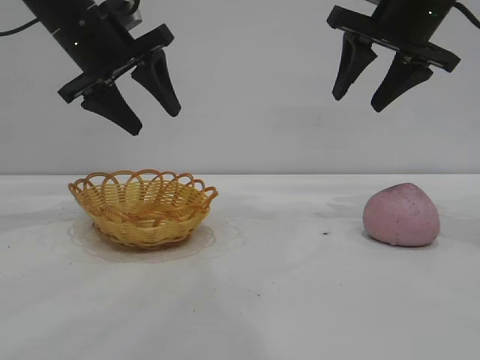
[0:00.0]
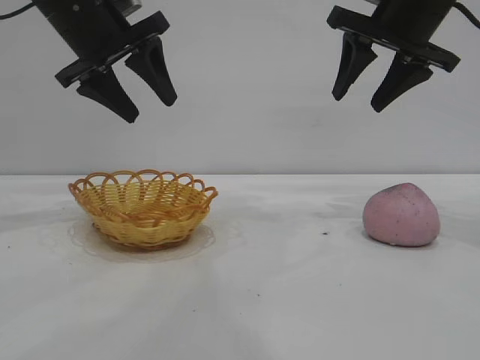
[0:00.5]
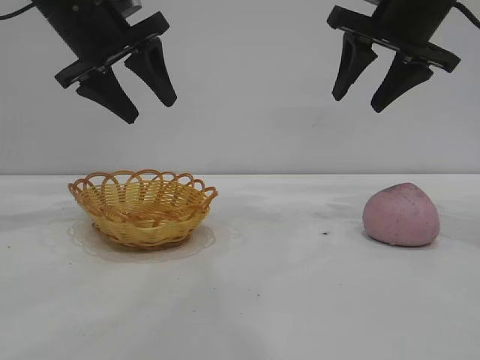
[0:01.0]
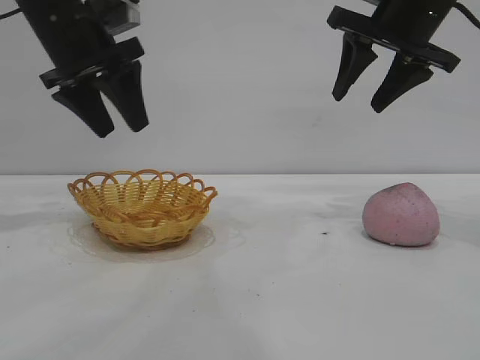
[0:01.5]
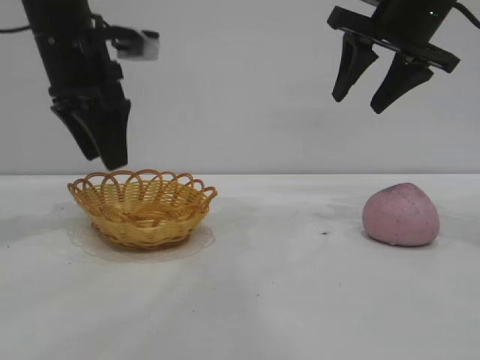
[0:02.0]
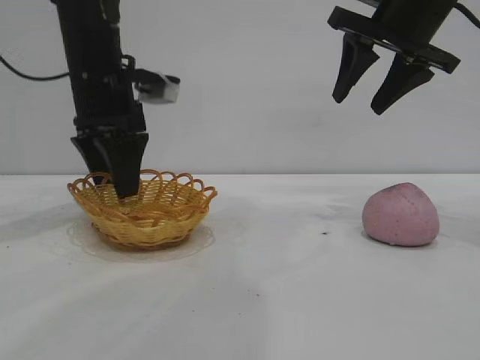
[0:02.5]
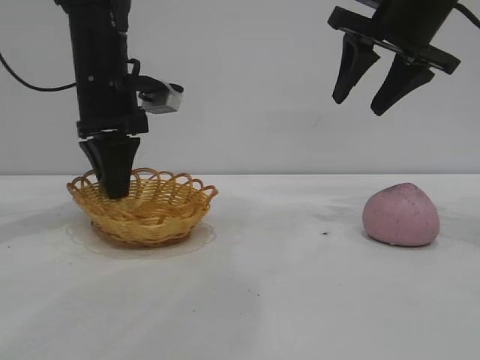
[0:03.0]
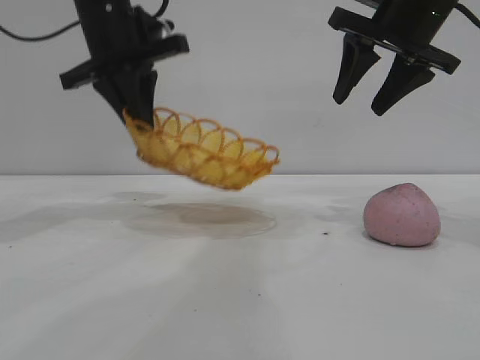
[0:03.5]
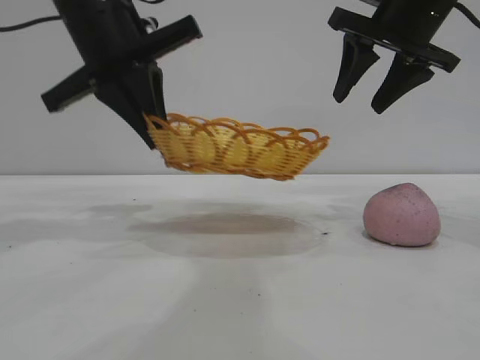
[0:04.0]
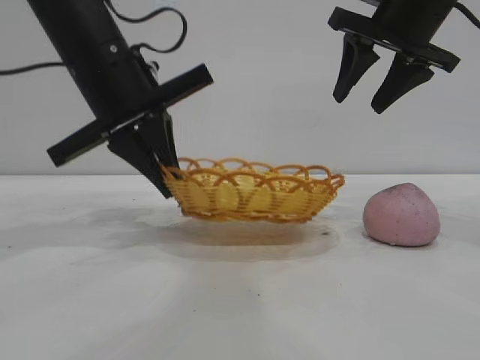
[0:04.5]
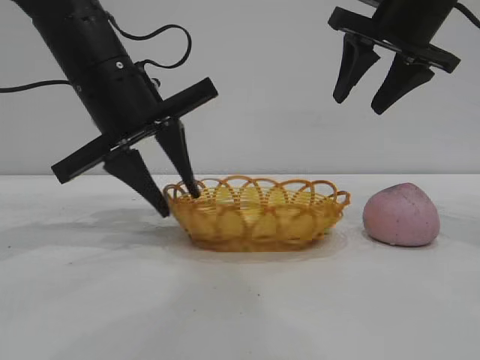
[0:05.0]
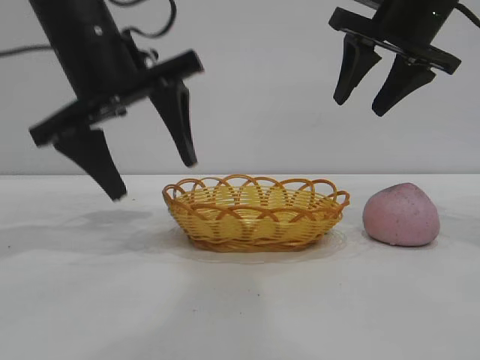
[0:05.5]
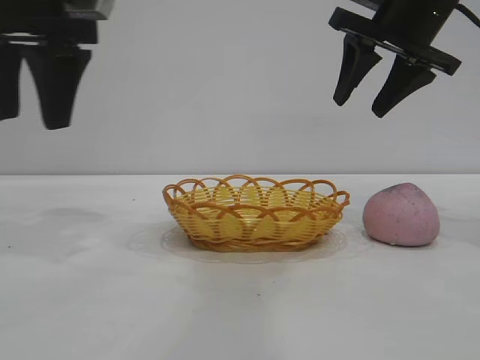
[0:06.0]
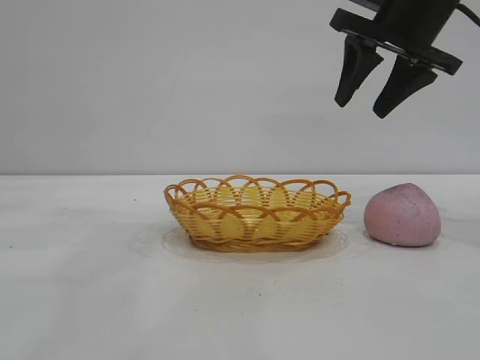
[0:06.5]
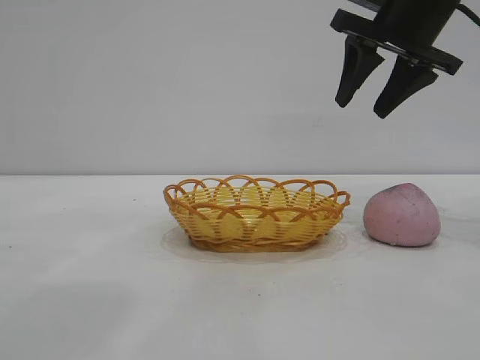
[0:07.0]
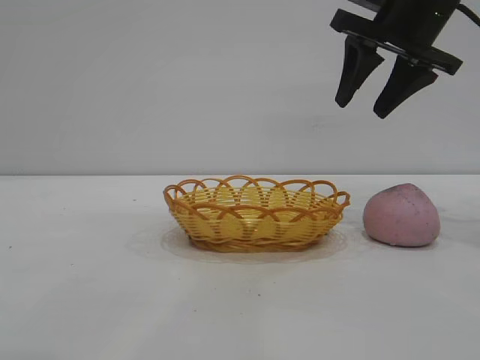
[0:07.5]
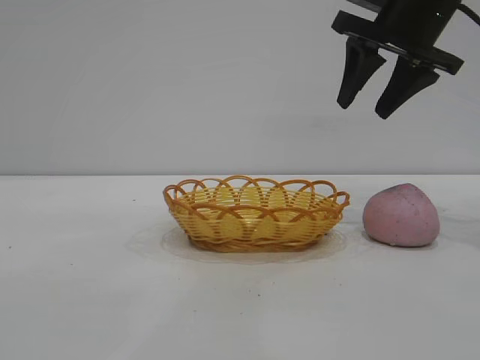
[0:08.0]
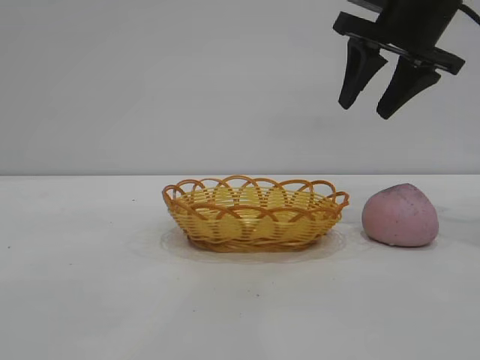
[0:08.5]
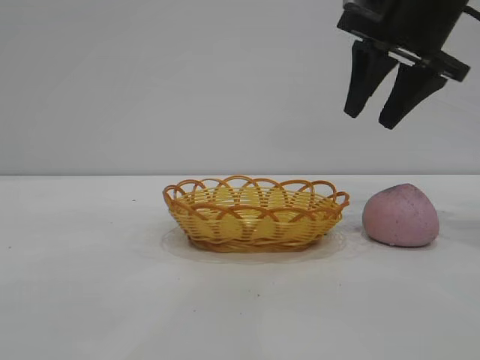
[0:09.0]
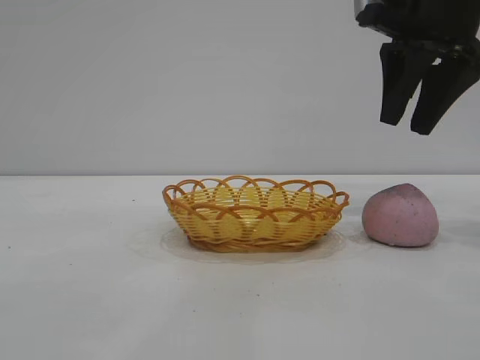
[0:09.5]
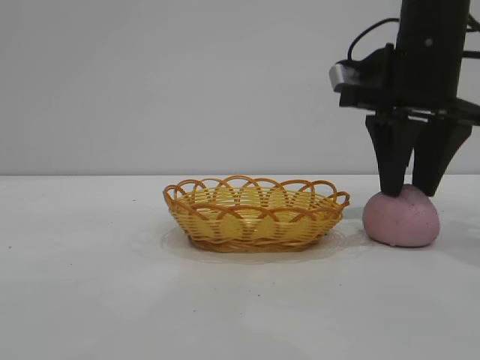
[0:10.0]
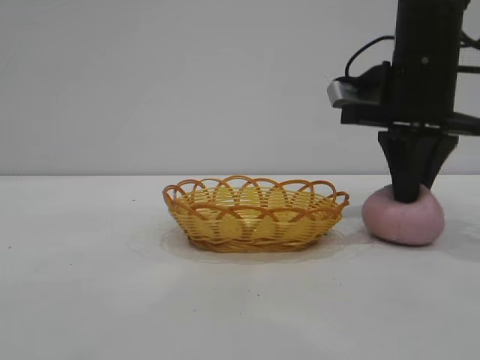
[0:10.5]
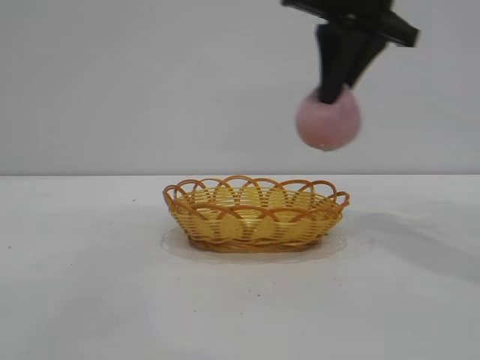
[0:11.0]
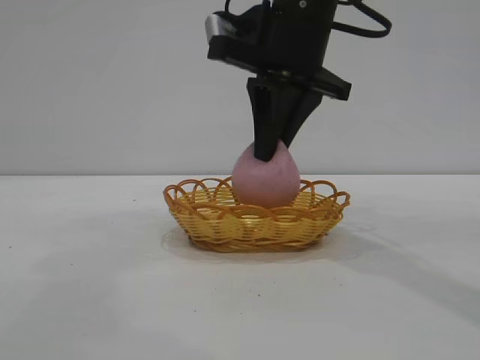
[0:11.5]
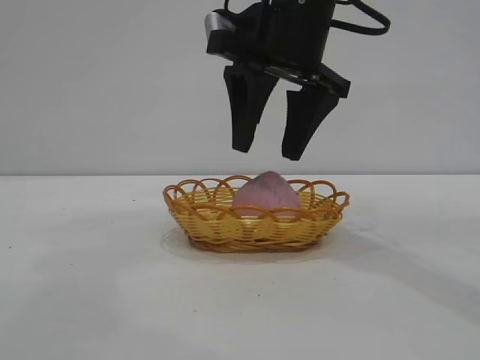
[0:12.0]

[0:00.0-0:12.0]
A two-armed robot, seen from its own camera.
Task of the whole recording: pick up the peach and put it into the basket.
Step, 0:00.0 to 0:05.5: Move the basket to the center of view.
Step, 0:06.0 to 0:10.5: Pick up the peach.

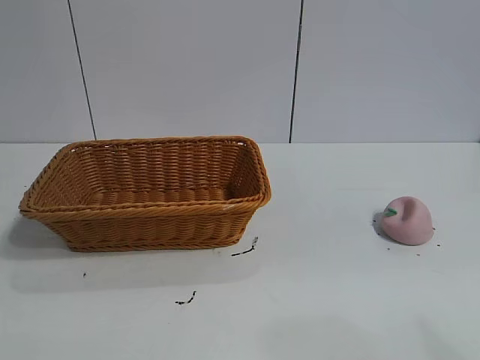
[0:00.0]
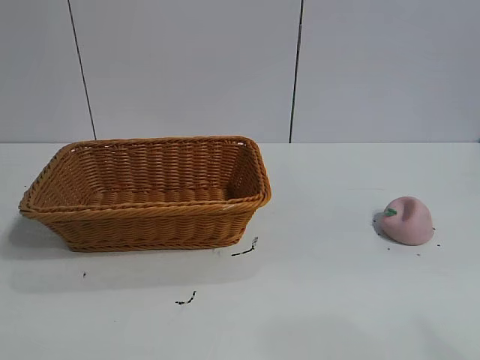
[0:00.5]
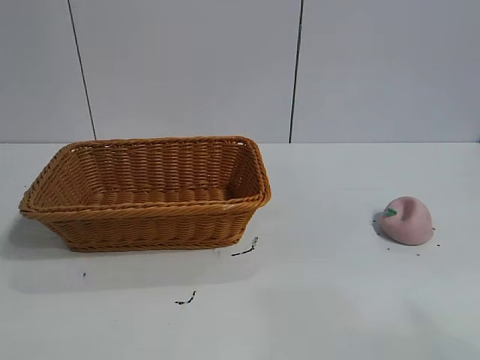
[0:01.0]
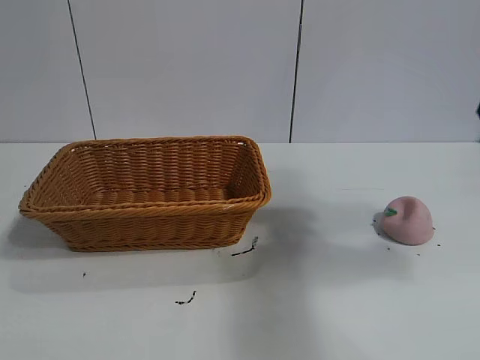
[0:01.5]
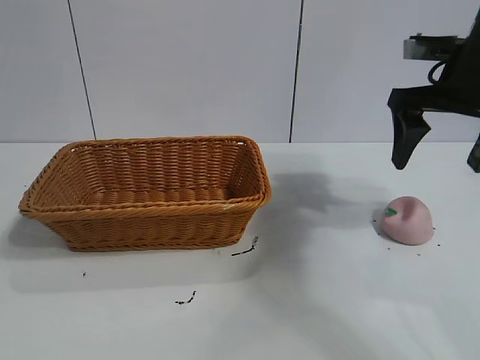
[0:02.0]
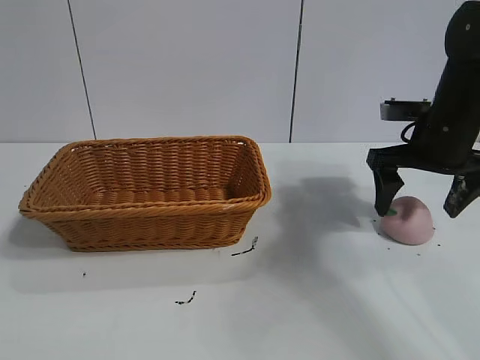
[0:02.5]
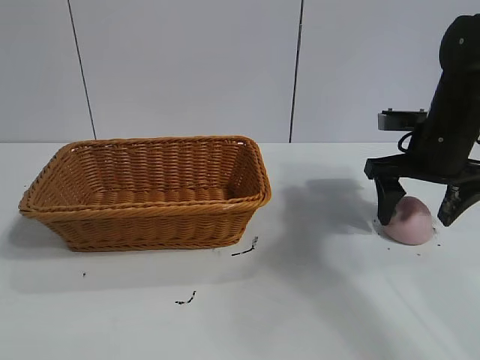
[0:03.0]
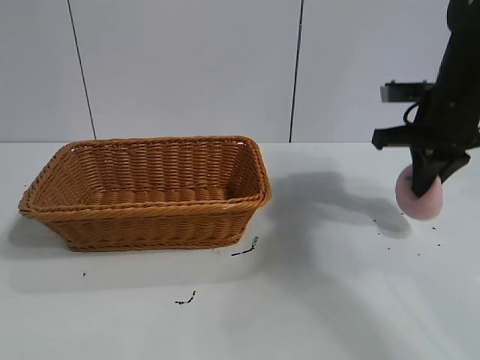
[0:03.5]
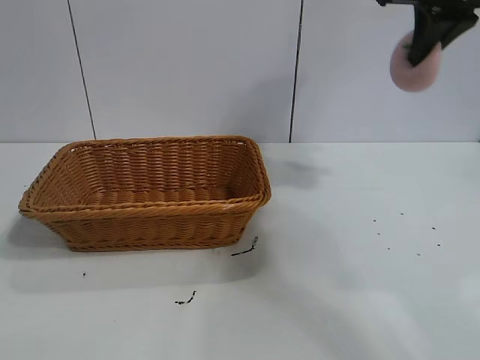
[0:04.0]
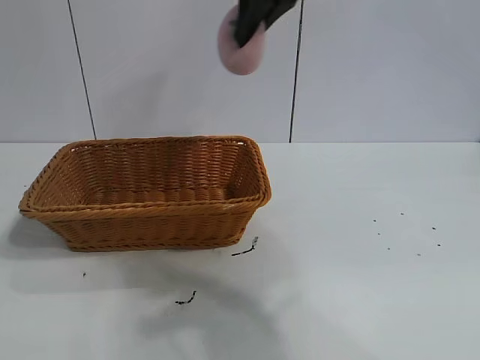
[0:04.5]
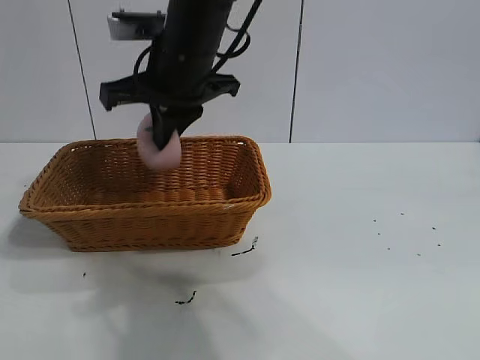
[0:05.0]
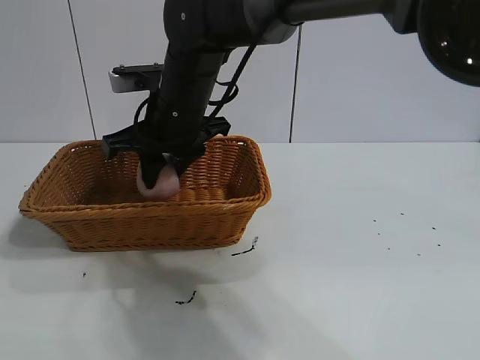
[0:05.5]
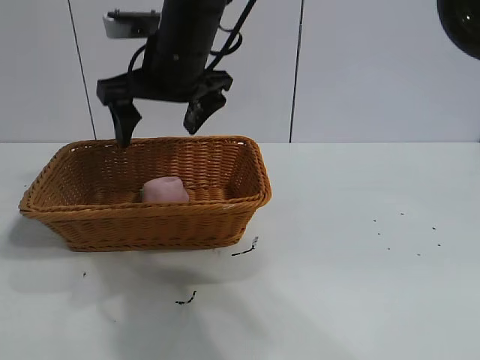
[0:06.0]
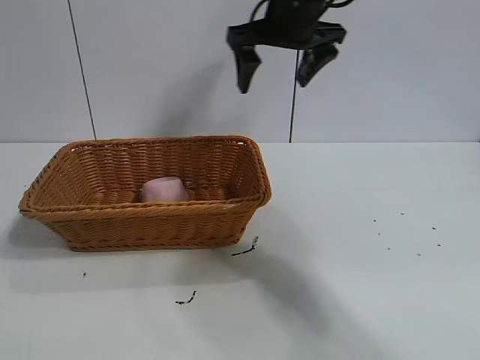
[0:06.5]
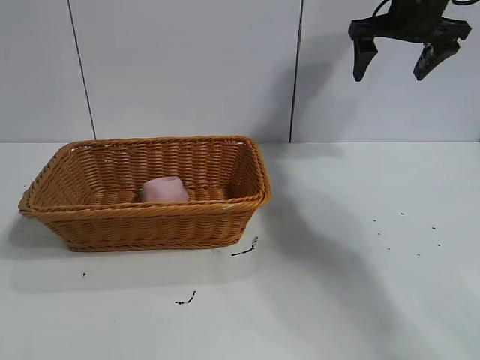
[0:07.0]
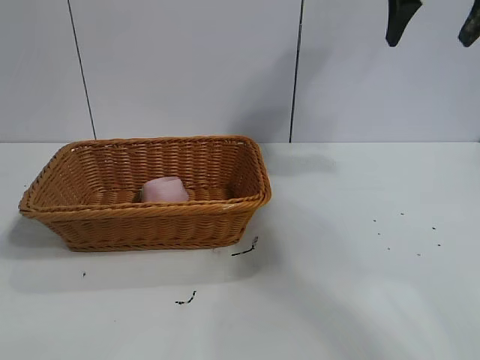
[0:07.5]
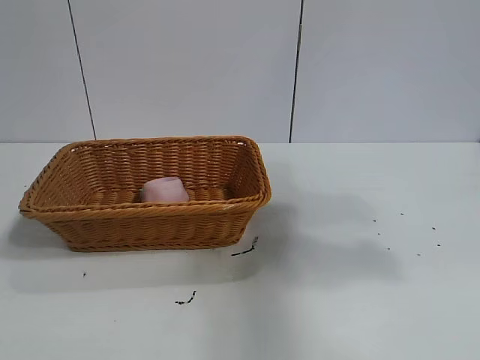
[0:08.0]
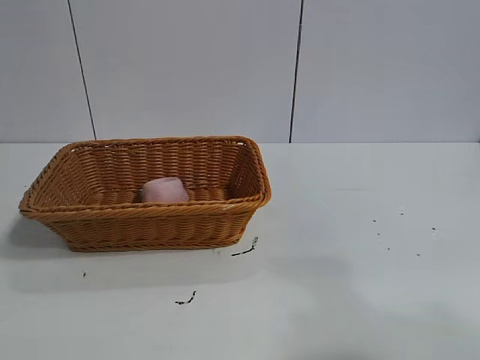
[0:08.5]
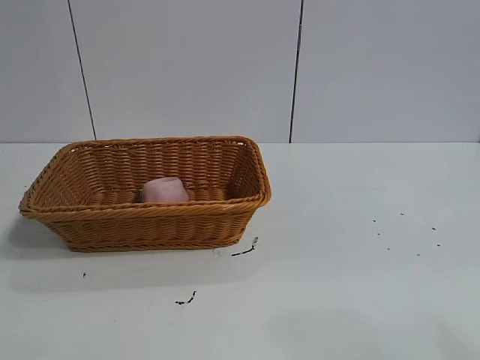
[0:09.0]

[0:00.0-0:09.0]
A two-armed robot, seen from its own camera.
Task of the whole recording: pick up the peach and put it into the basket.
Step, 0:01.0 to 0:03.5: Grasp the peach with right gripper.
Step, 0:04.0 to 0:05.5: Place the peach in the basket with right gripper.

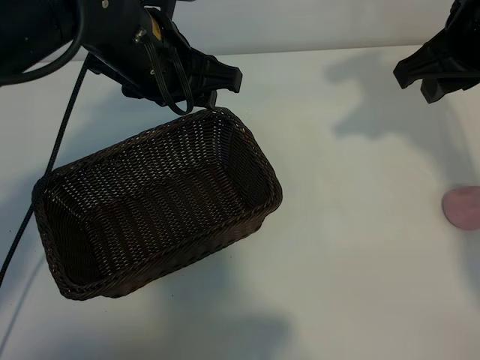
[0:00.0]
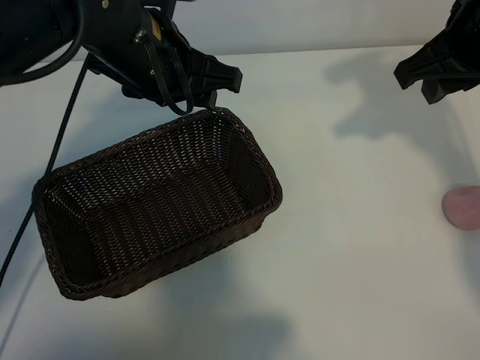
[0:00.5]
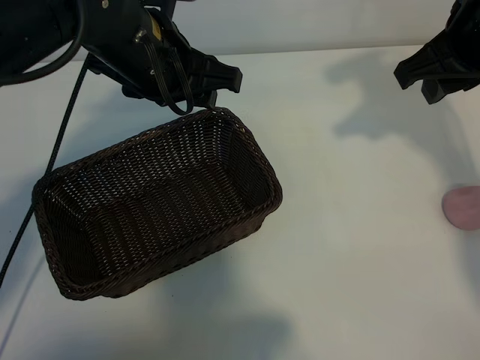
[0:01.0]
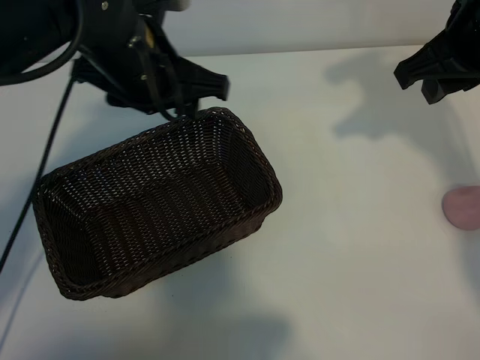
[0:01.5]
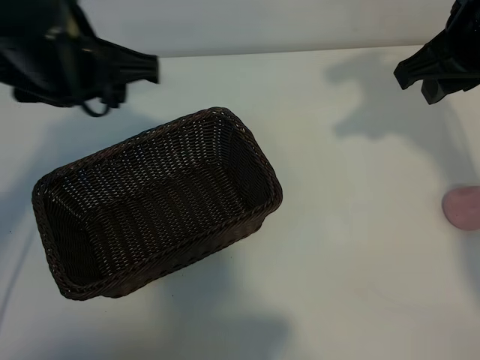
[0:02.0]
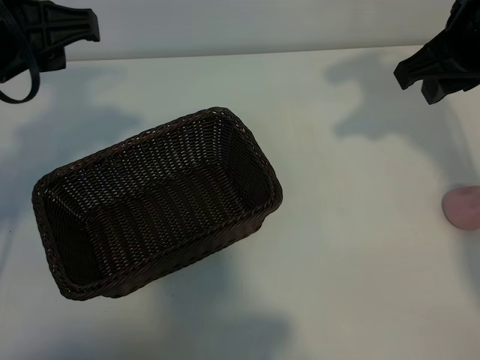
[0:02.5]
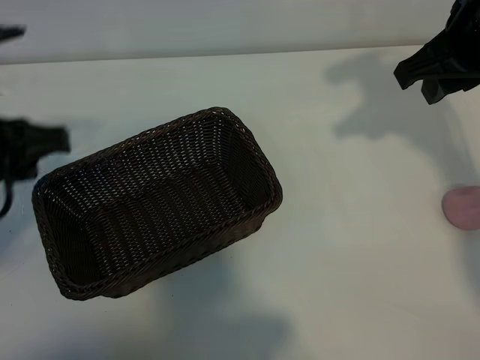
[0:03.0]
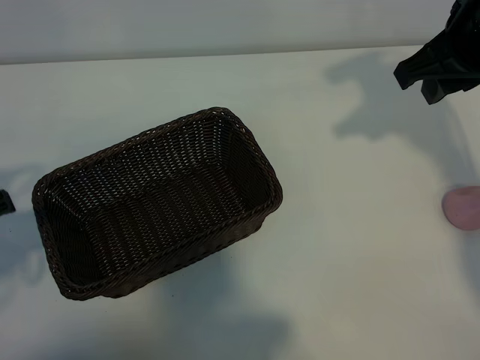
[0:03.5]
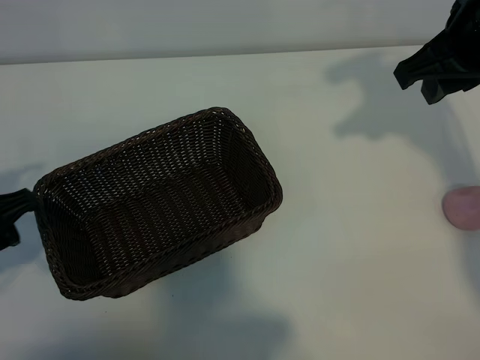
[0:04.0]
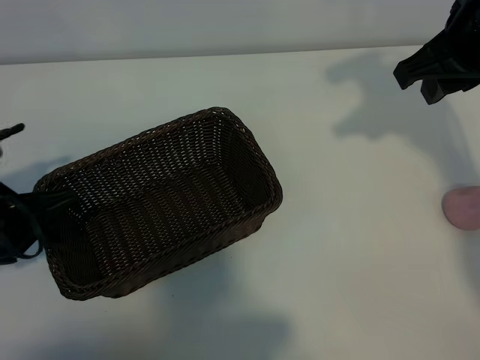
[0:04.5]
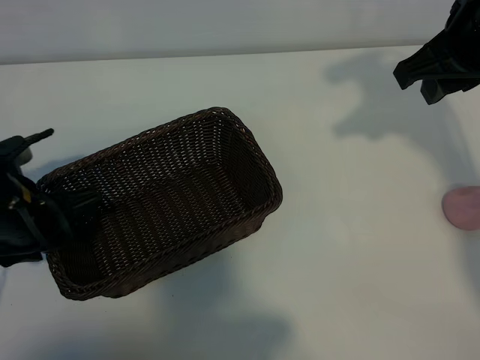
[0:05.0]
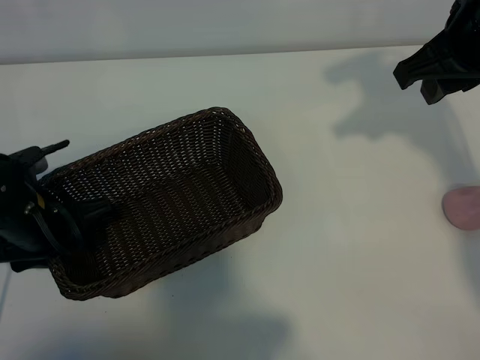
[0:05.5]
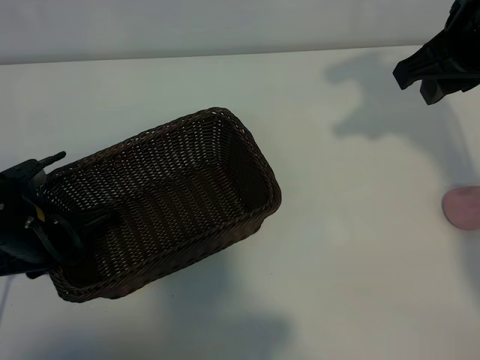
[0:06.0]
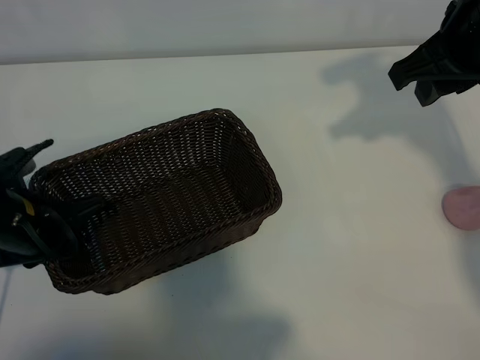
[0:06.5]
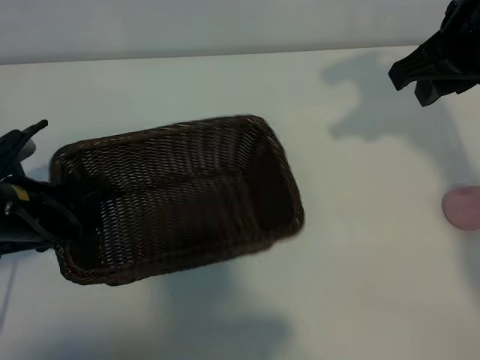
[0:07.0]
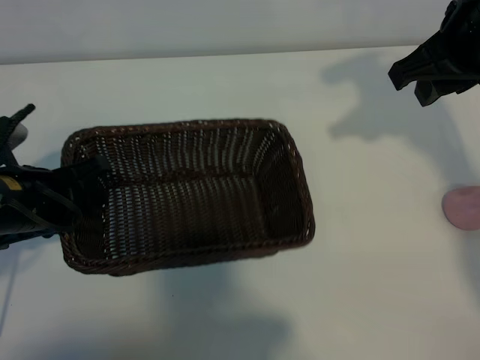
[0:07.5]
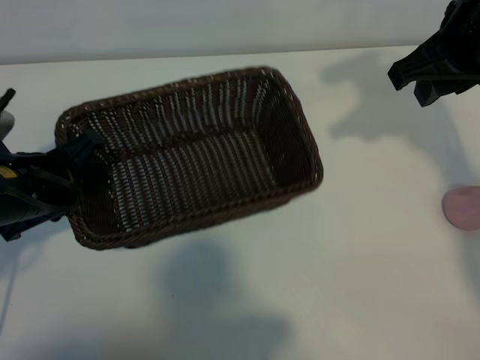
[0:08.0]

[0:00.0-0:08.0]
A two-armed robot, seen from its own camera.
Task of the whole recording: pick up the peach and put it into the basket.
Step, 0:01.5 to 0:06.0: Grasp the basket with left gripper.
